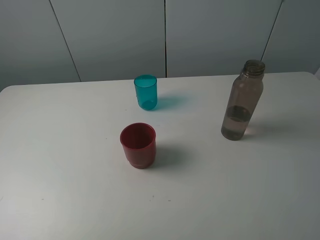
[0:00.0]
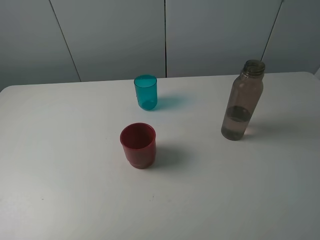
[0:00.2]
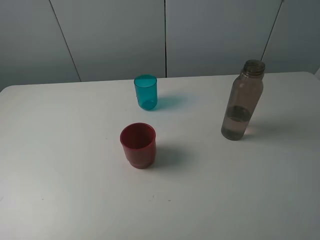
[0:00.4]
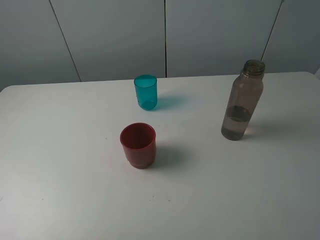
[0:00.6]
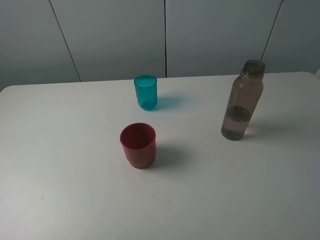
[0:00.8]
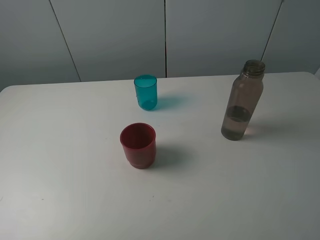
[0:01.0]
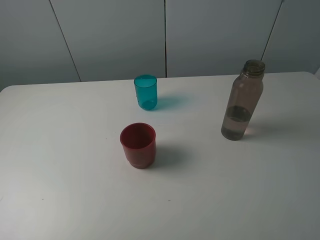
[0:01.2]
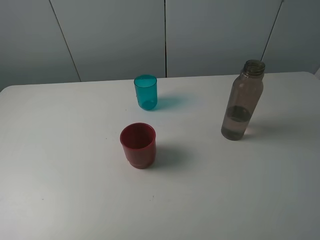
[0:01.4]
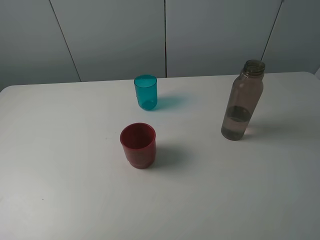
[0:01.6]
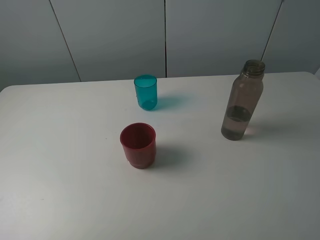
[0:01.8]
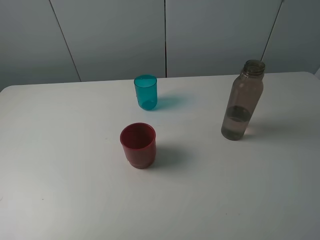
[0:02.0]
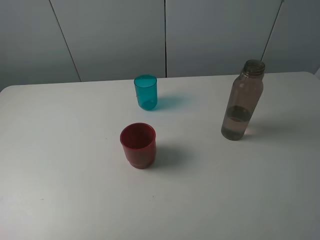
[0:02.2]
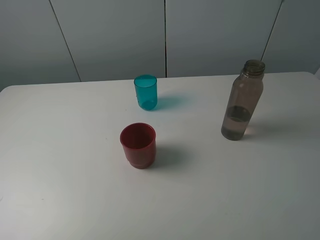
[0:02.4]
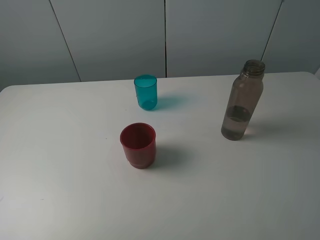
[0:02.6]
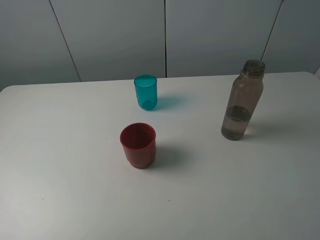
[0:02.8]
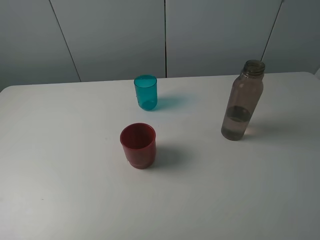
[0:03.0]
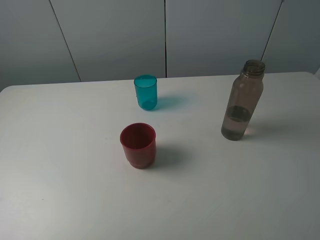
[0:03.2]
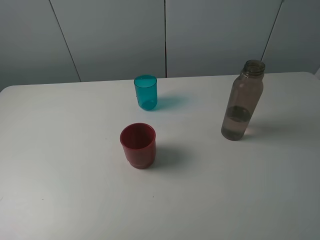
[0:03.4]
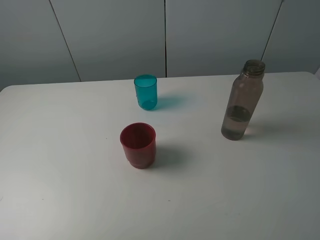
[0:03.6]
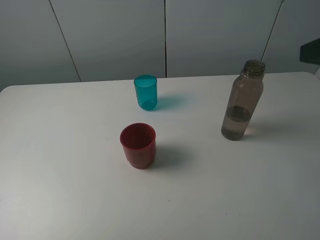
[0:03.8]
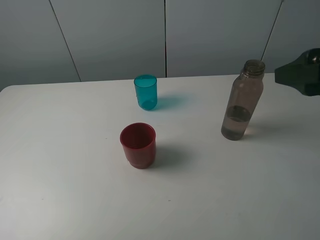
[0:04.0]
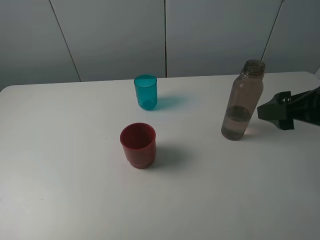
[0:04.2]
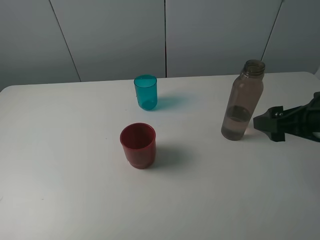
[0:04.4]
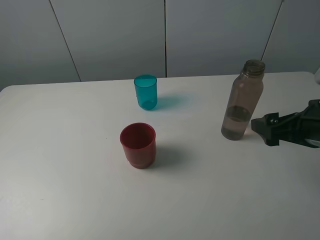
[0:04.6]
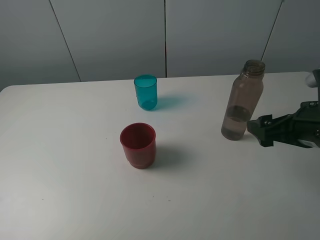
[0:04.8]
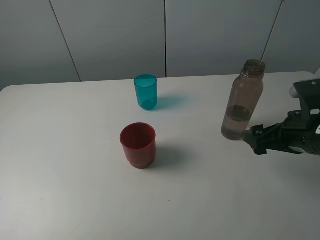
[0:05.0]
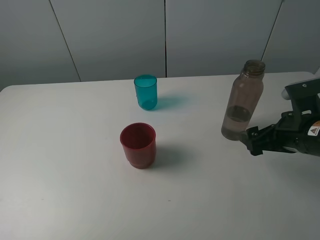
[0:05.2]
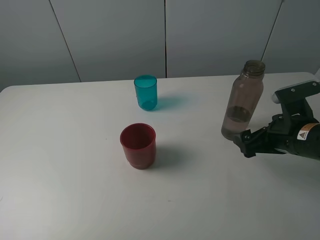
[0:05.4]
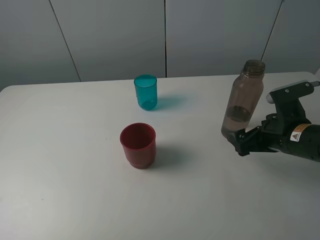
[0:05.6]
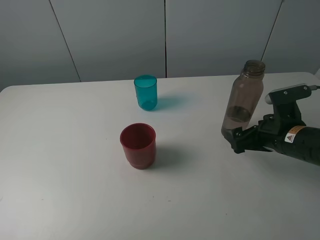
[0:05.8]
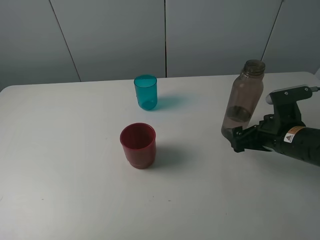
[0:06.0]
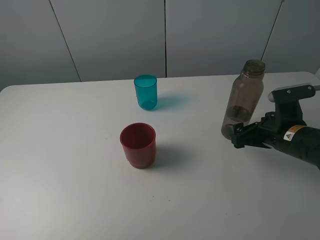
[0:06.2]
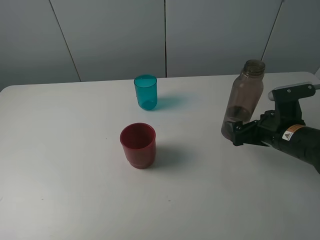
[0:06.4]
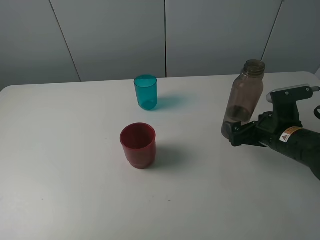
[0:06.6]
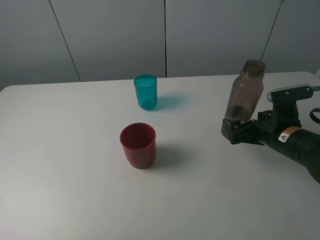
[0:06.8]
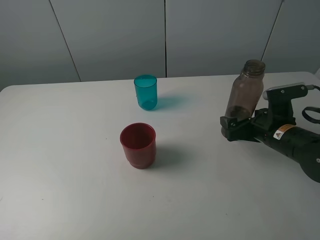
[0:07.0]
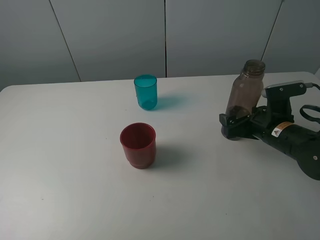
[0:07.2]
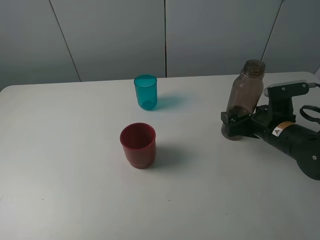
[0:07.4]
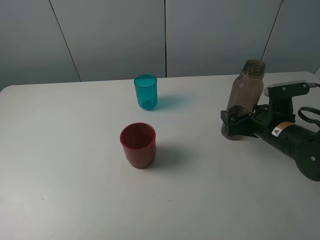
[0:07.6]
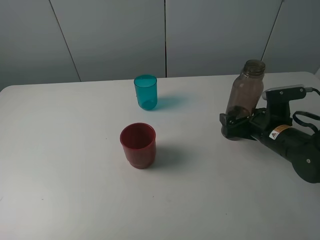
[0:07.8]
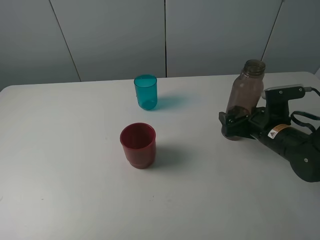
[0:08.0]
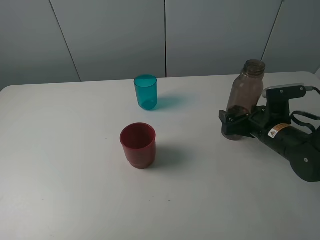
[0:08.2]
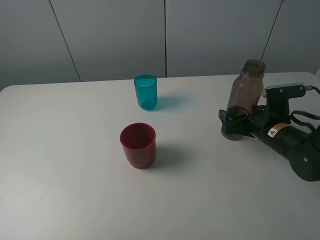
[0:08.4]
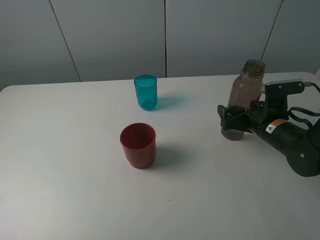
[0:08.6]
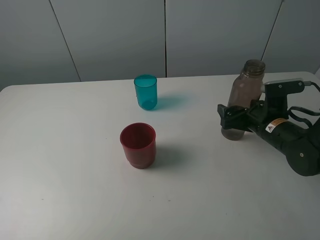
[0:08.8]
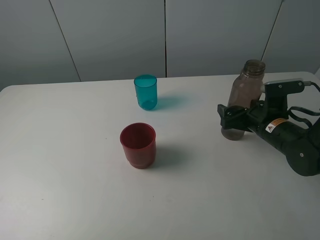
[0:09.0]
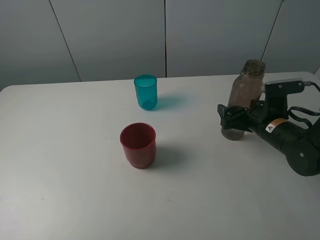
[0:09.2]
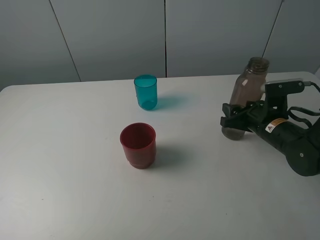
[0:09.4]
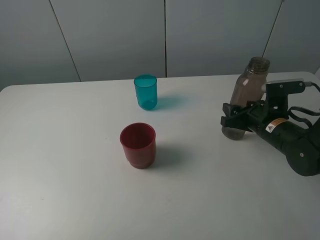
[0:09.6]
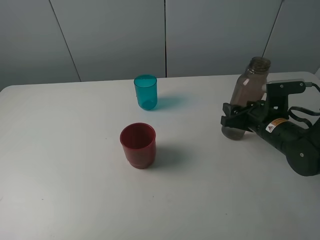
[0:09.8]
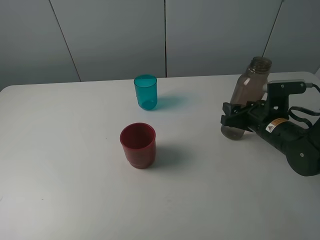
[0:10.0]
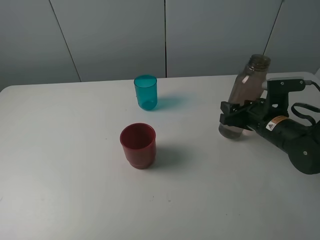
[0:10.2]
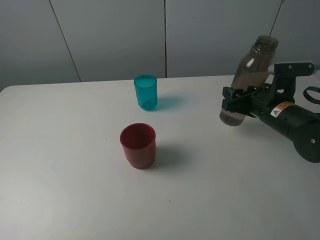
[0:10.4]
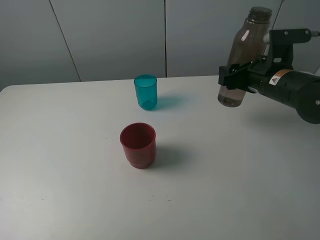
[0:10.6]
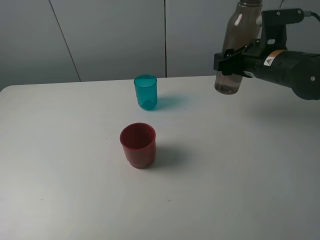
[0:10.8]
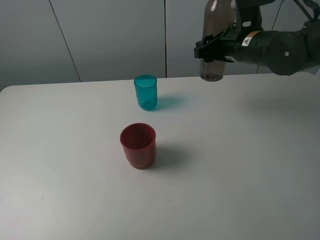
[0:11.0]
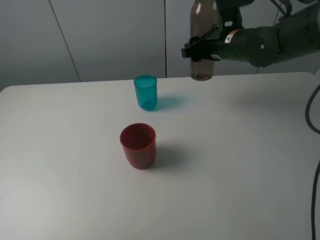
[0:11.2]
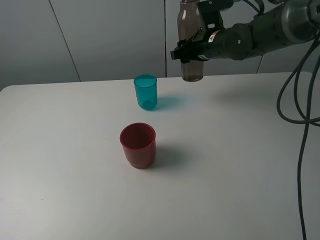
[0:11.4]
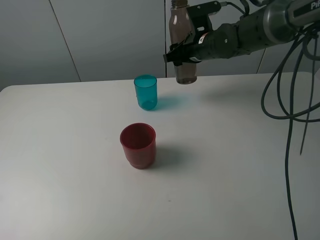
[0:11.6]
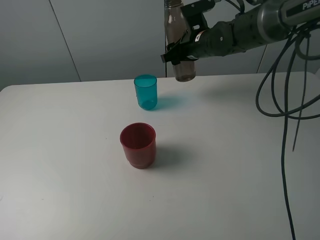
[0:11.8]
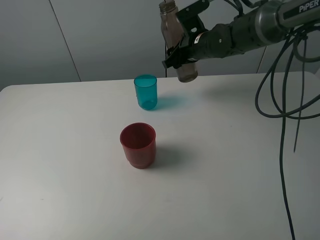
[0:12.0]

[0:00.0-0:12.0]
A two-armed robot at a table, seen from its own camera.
Task of the whole recording: pick up the bottle and pour water into the cup, then pick up the cup containing water and pour it into another cup.
Step, 0:00.0 to 0:09.6: Grasp the brown bottle with the right gripper.
0:00.0 to 0:01.6: The two grippers keep their place.
0:03.0 to 0:04.4: The right gripper shifts roughly 20 cm forward and downward.
0:04.4 to 0:06.0: The right gripper goes some 10 cm downward.
0:06.0 to 0:09.0: The grippers stay close to where they were, moving slightly.
0:09.0 to 0:10.4: The right gripper heads upward, covering roughly 5 cm, and closes its fingers.
0:10.4 to 0:12.0: The right gripper travels forward and to the left by some 20 cm.

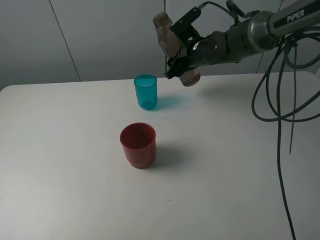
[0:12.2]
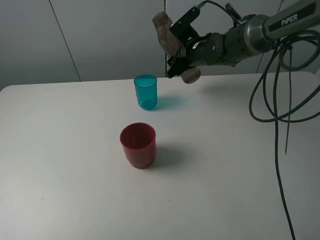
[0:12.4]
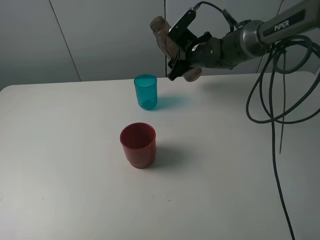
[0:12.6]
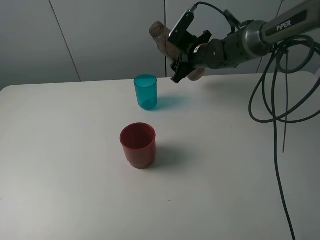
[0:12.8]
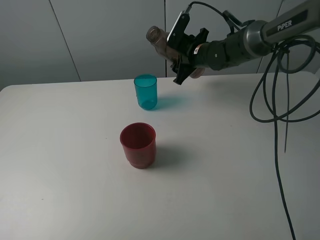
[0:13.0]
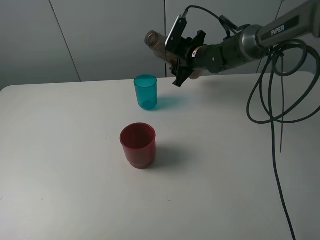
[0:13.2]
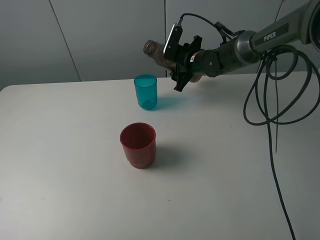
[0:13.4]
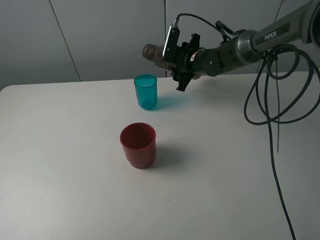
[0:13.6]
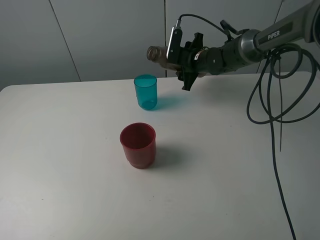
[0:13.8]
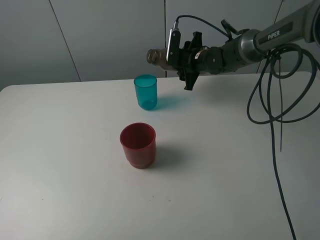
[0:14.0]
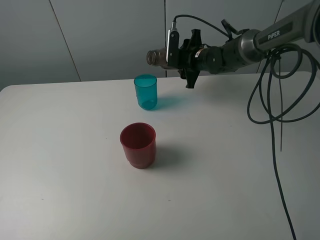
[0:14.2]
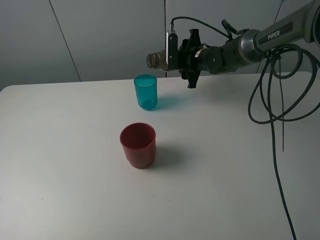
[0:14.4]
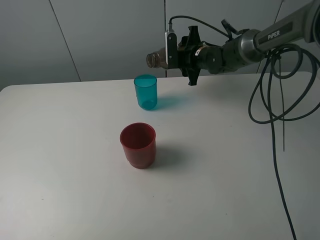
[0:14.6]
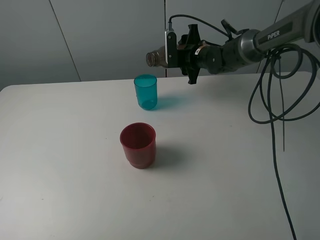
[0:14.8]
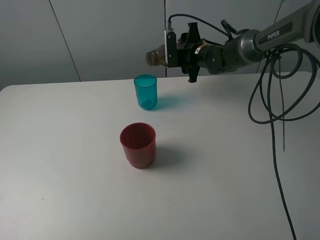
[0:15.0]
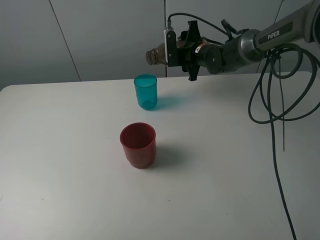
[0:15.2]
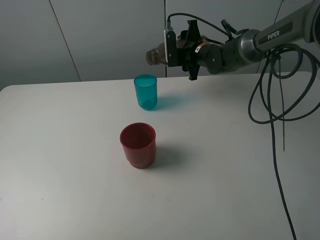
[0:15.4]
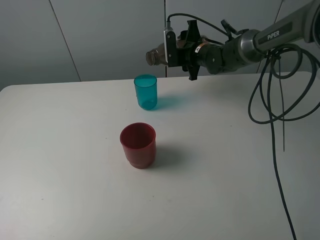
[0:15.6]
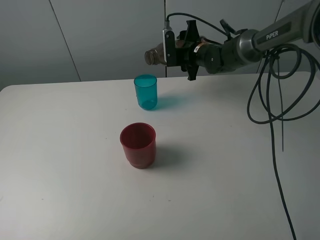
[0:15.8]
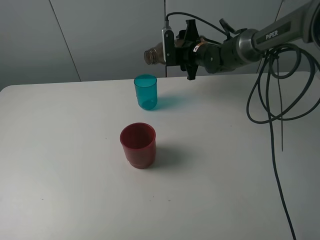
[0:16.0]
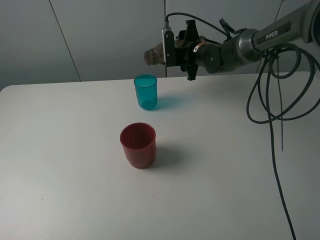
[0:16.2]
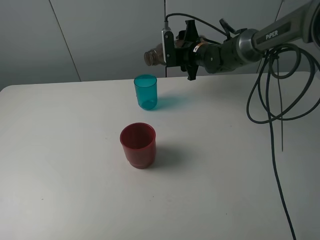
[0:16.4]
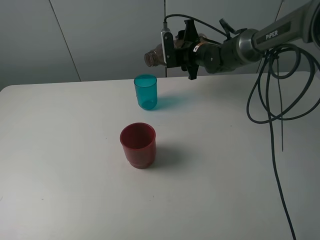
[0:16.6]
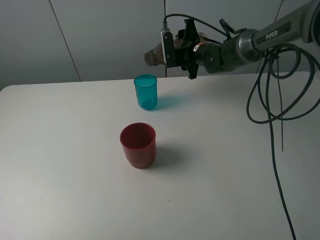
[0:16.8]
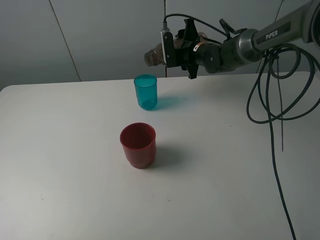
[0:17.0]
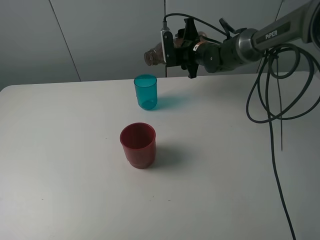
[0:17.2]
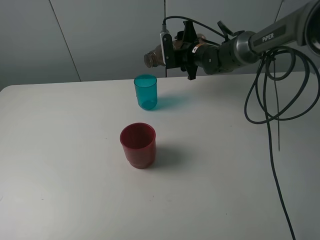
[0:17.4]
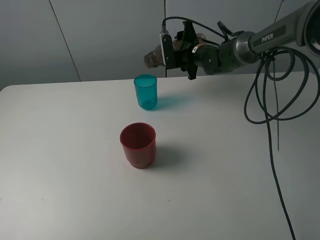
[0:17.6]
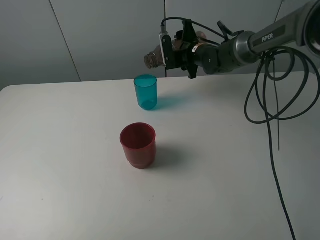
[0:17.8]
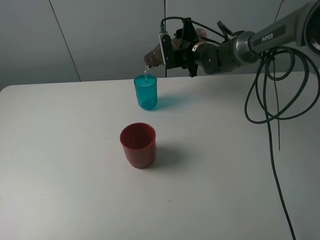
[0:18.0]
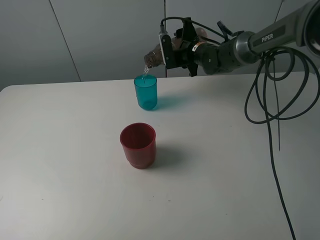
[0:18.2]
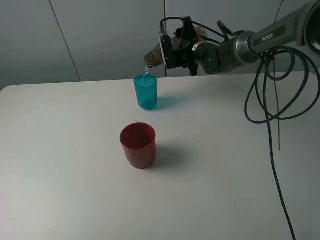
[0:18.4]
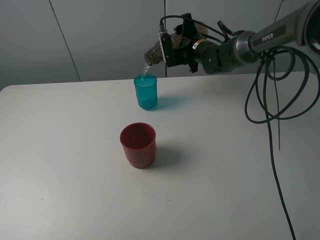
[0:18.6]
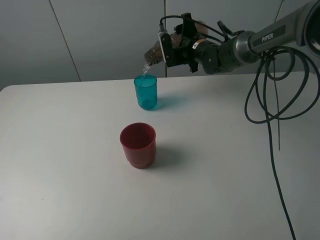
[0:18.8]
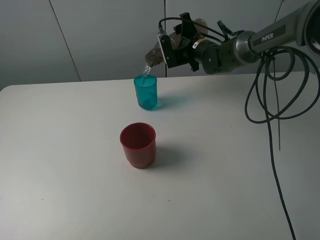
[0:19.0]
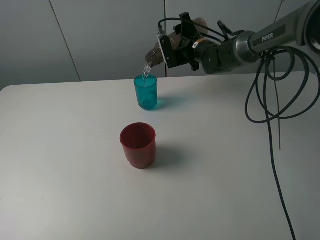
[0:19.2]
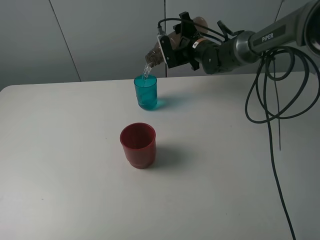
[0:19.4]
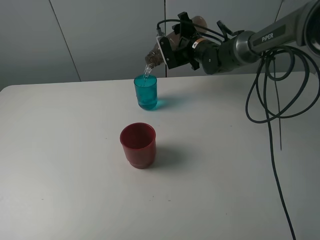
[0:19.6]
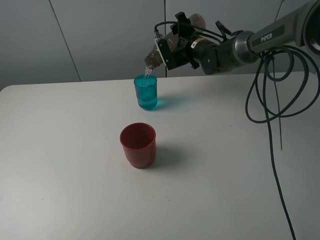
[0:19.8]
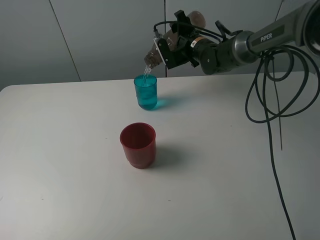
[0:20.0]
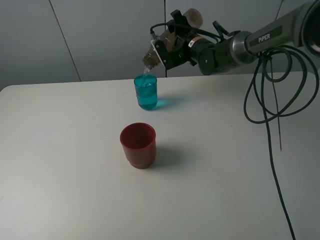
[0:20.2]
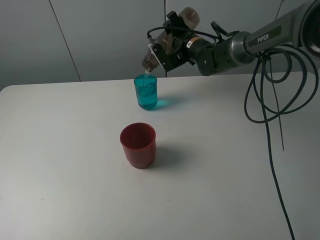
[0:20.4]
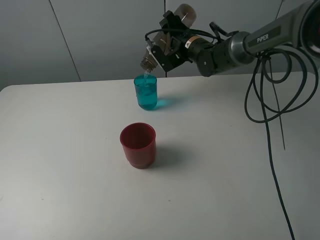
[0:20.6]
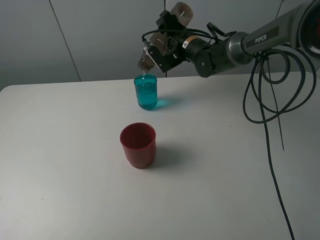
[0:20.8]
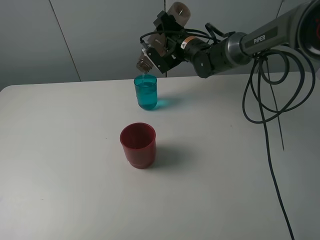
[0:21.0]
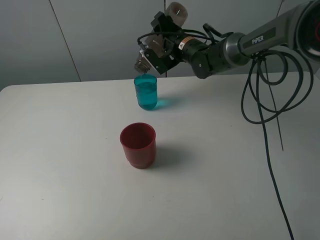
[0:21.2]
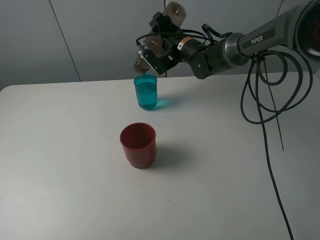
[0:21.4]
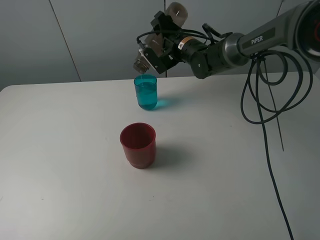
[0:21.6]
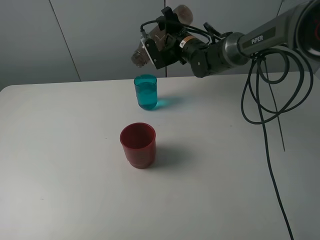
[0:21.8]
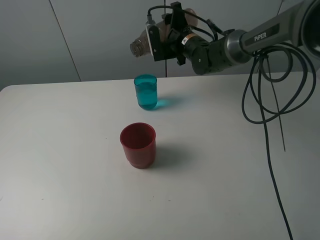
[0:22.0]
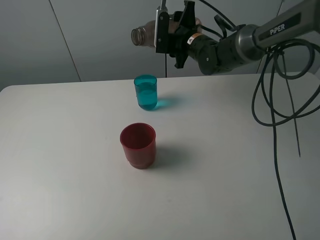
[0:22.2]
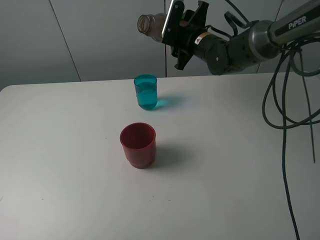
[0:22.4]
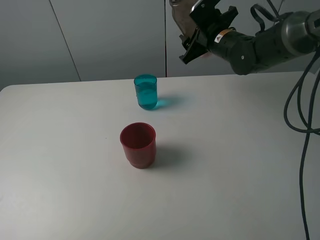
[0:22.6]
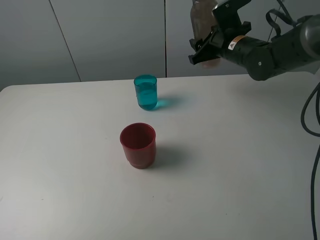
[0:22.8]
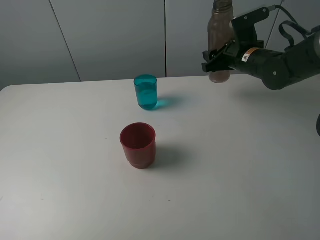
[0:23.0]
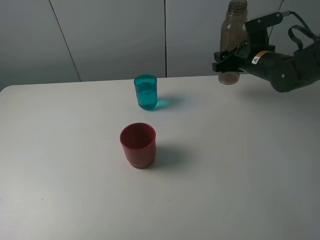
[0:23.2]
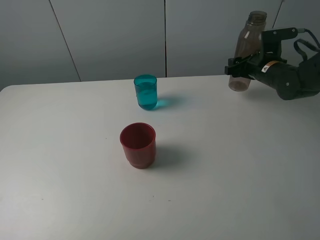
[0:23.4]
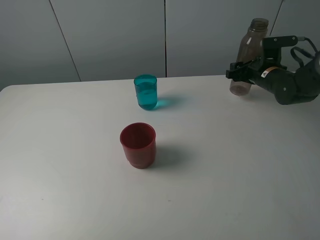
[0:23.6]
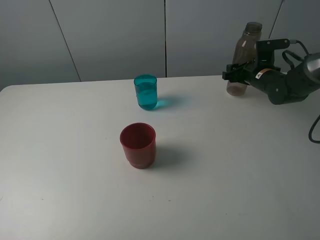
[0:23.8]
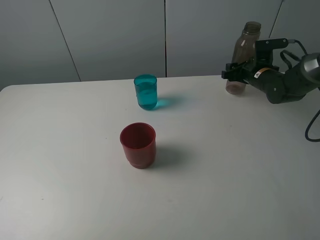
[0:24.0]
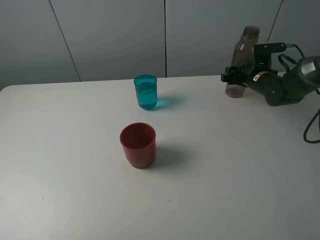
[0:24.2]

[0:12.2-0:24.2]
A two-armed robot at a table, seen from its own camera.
Task of the whole recording: pick up the bottle and pour water into the cup, then pick up the cup containing water and pour it into another cup.
Step, 0:12.2 to 0:21.6: Pour water from brown bottle to blue cup with the right gripper.
0:15.2 to 0:16.6: Both grippers stay put.
0:16.6 to 0:18.2: The grippers stay close to where they were, moving slightly.
0:18.2 to 0:19.8: The grippers stay close to where they were, moving slightly.
0:19.8 to 0:21.2: The grippers stay close to where they were, moving slightly.
0:21.2 to 0:22.6: The right gripper moves to the right and backward, approximately 10 cm.
0:22.6 to 0:24.2: The right gripper goes some 15 cm to the right and downward.
